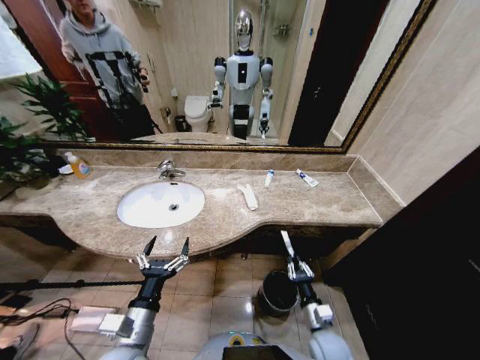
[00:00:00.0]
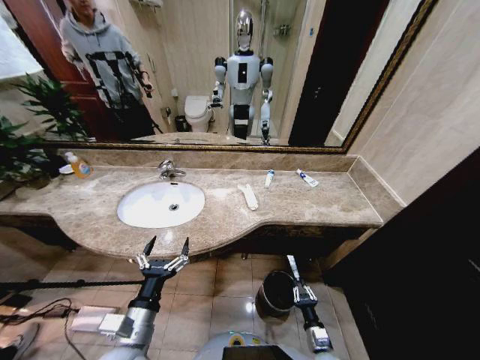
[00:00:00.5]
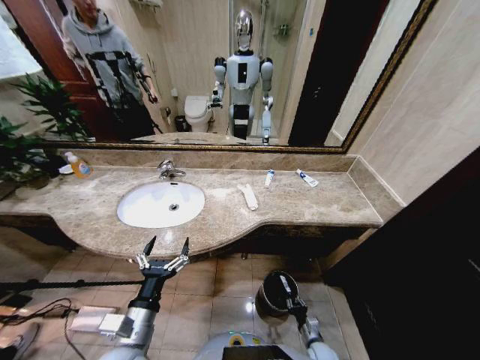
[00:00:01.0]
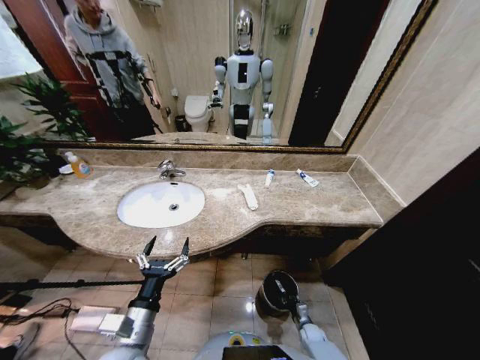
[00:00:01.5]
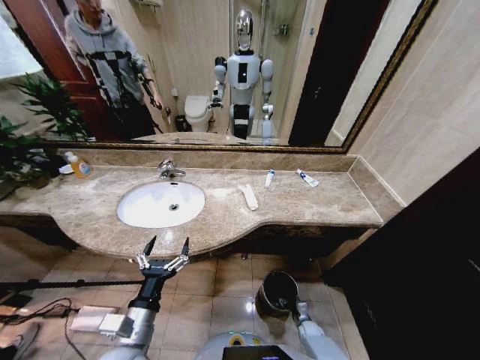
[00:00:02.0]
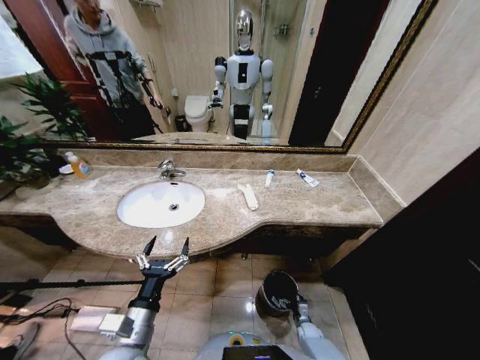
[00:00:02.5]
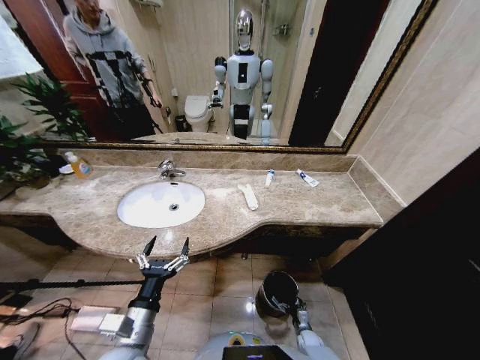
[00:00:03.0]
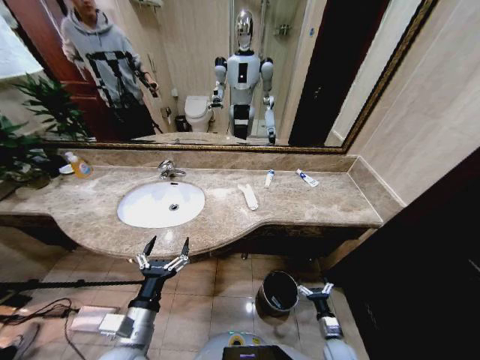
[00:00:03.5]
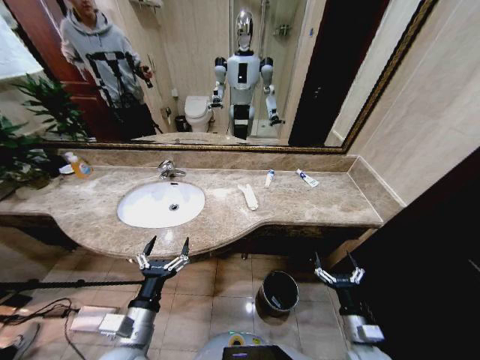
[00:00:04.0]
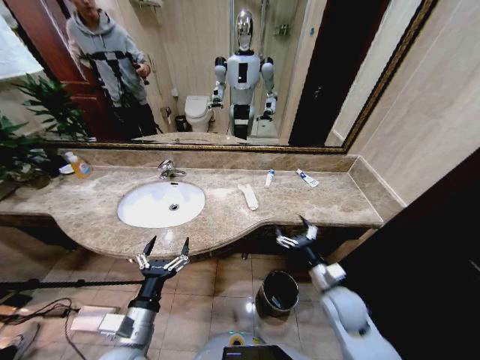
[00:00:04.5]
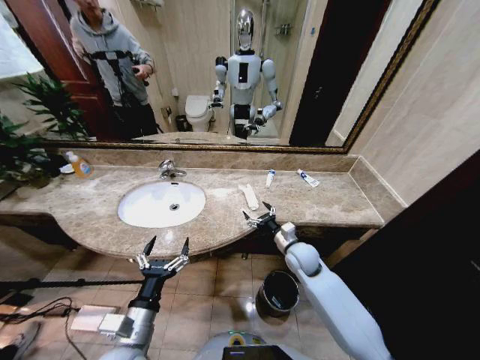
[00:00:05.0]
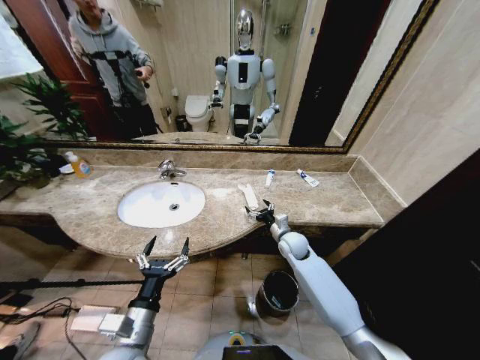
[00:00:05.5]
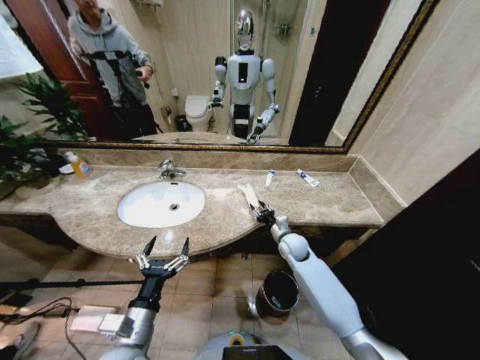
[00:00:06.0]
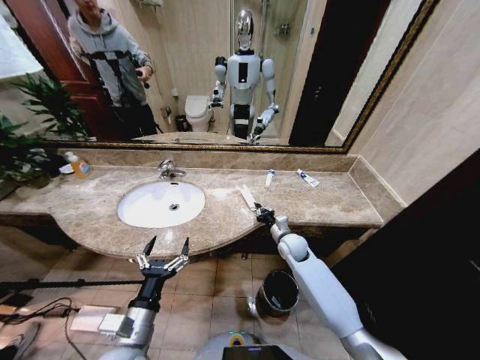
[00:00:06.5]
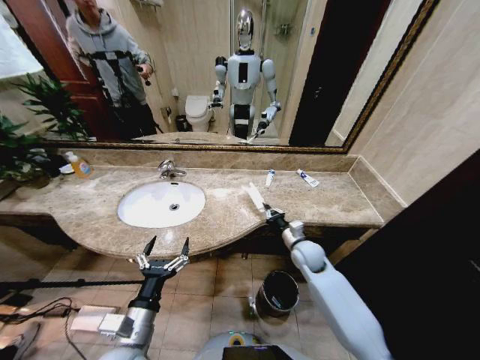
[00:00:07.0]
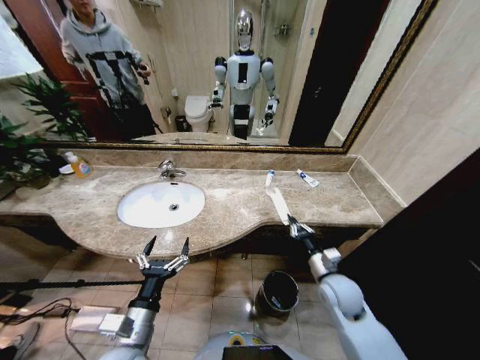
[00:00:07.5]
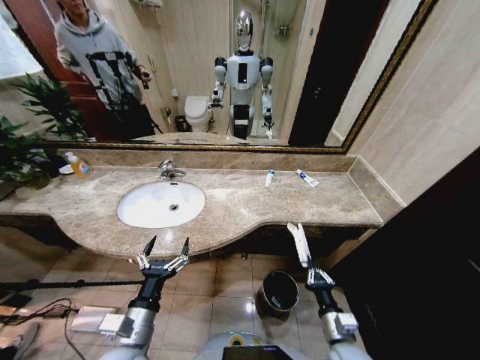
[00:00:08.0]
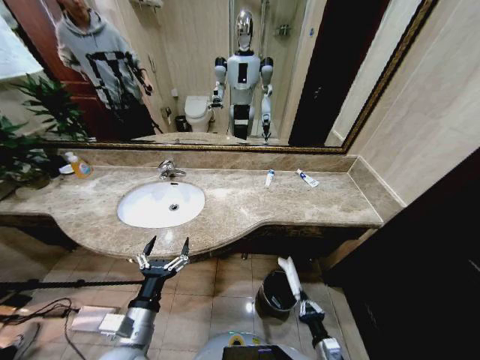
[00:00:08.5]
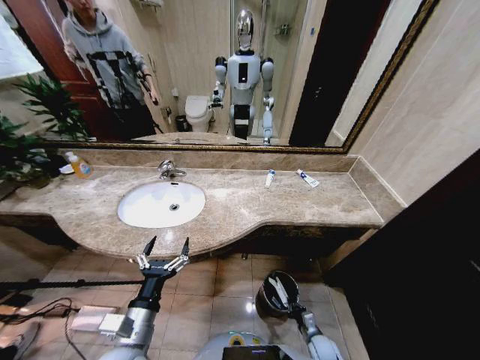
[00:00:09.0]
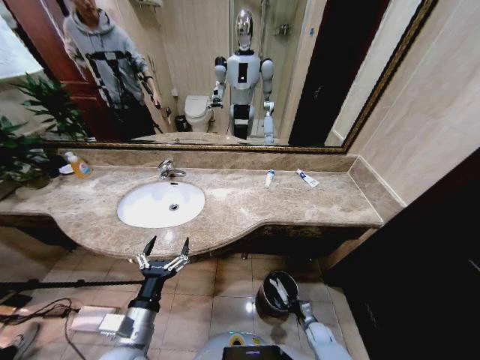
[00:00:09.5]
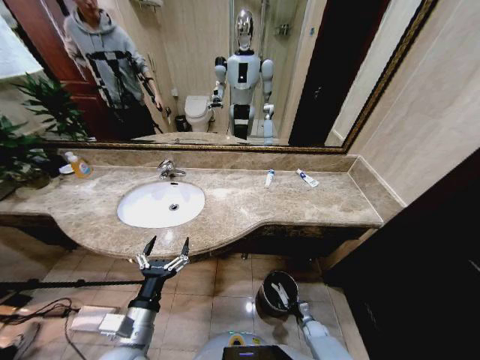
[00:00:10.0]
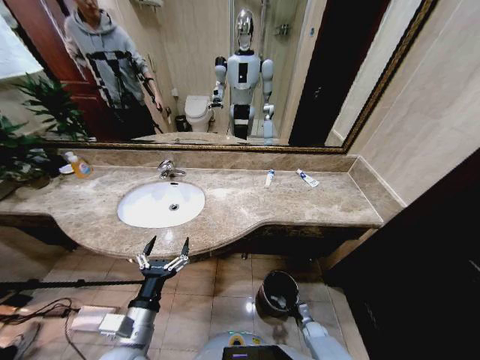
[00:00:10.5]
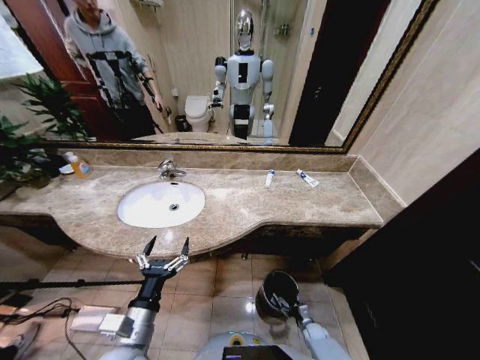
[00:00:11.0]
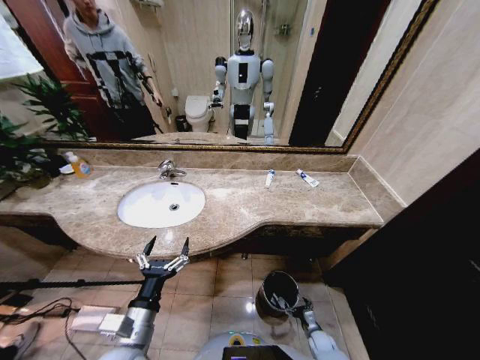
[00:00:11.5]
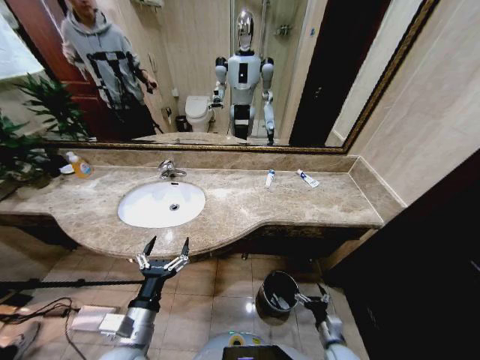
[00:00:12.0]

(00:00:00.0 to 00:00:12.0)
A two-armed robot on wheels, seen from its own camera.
Task of the whole recording: Pick up the trash from the sink and place it in the trash bin.
00:00:00.0 - 00:00:02.0: The right gripper moves downward, about 25 cm, and opens.
00:00:02.0 - 00:00:04.0: The right gripper shifts some 25 cm upward, and opens up.
00:00:04.0 - 00:00:06.0: The right gripper moves forward and to the left, some 35 cm, and closes up.
00:00:06.0 - 00:00:08.0: The right gripper shifts some 30 cm backward, and closes up.
00:00:08.0 - 00:00:10.0: The right gripper moves downward, some 30 cm.
00:00:10.0 - 00:00:12.0: The right gripper goes approximately 20 cm upward and backward, and opens.

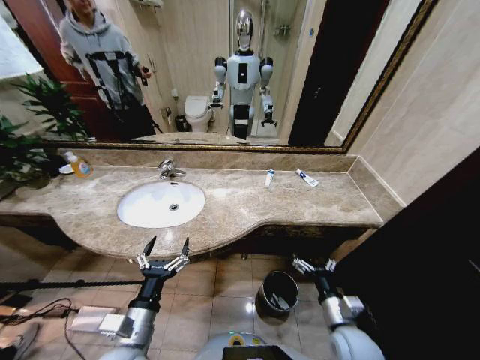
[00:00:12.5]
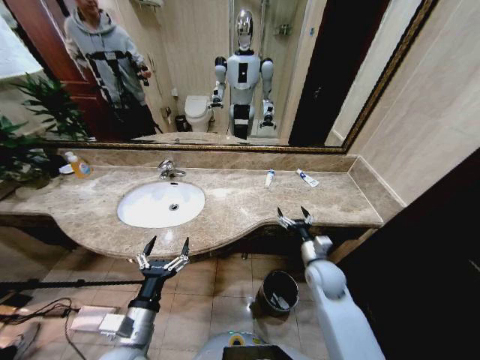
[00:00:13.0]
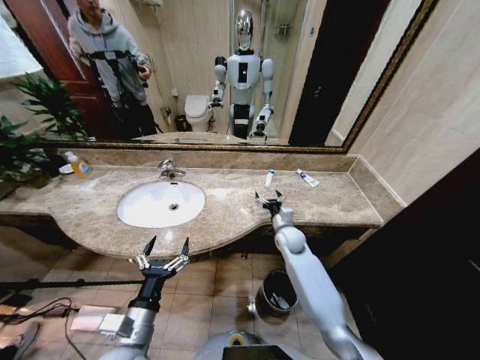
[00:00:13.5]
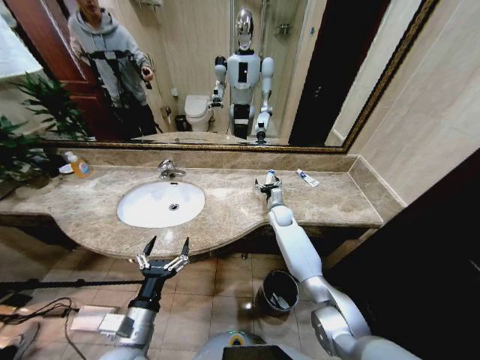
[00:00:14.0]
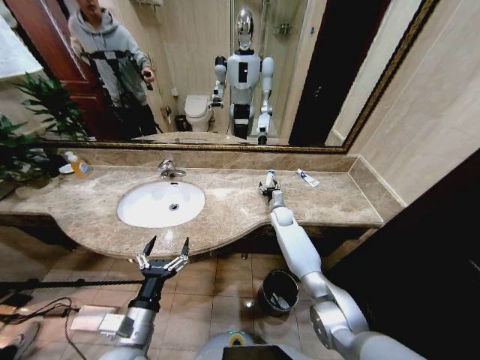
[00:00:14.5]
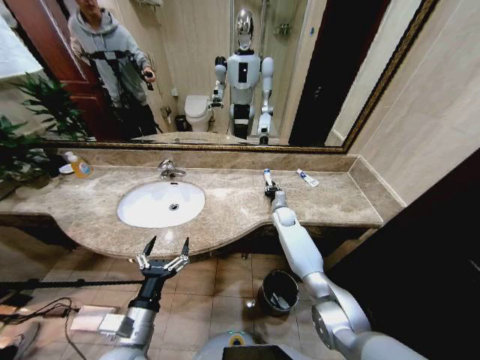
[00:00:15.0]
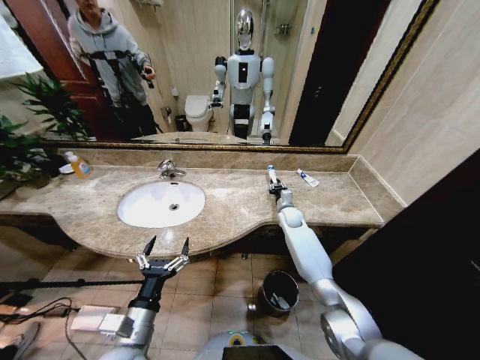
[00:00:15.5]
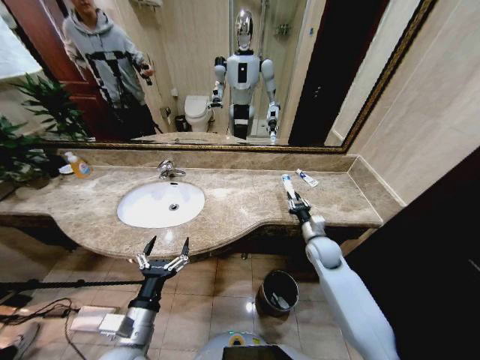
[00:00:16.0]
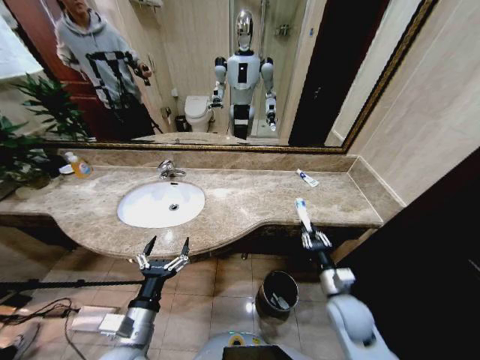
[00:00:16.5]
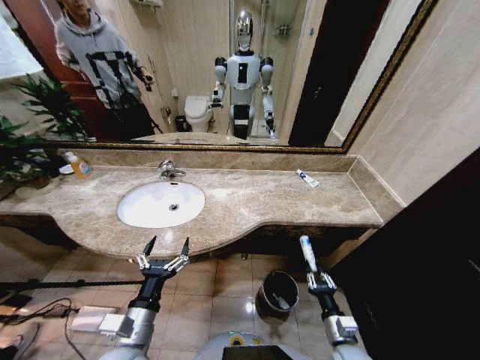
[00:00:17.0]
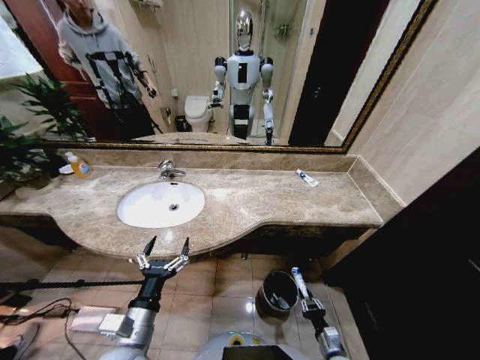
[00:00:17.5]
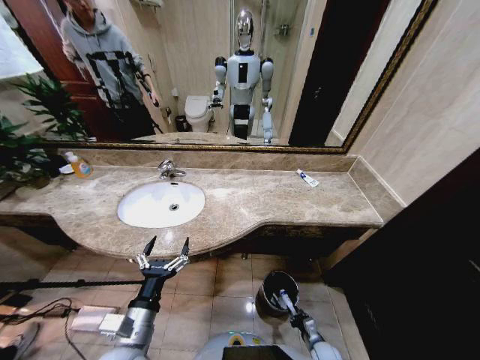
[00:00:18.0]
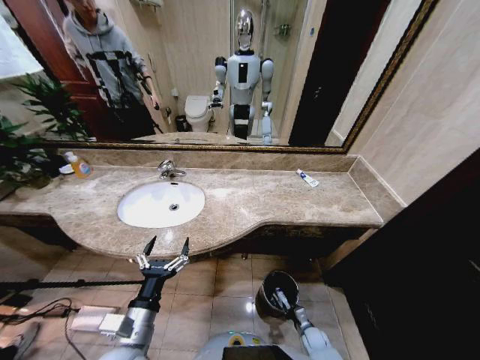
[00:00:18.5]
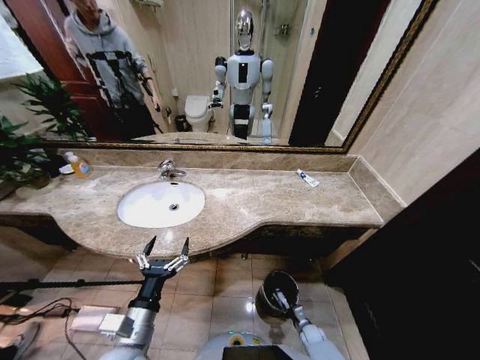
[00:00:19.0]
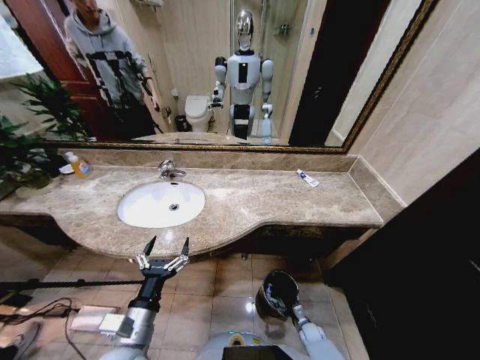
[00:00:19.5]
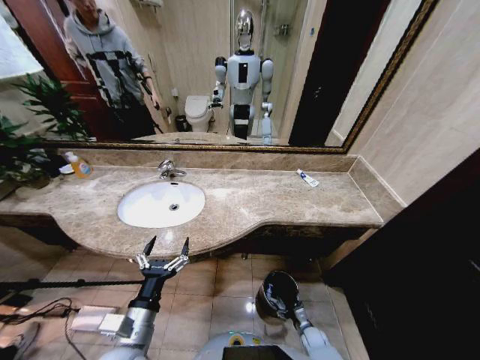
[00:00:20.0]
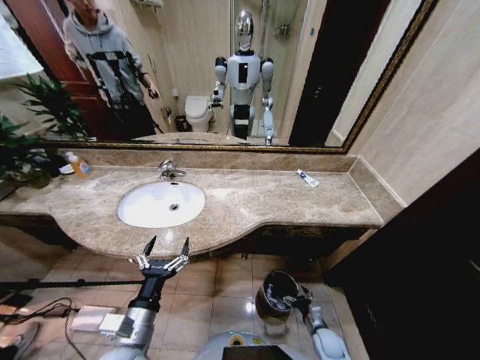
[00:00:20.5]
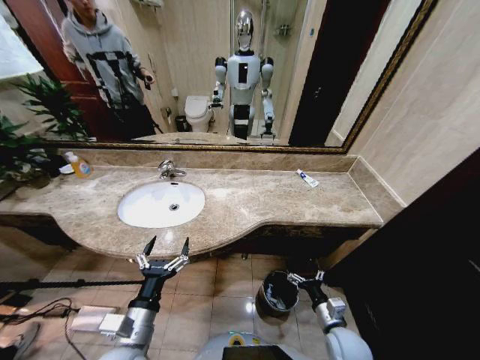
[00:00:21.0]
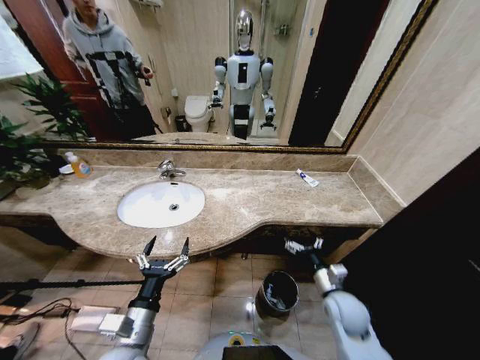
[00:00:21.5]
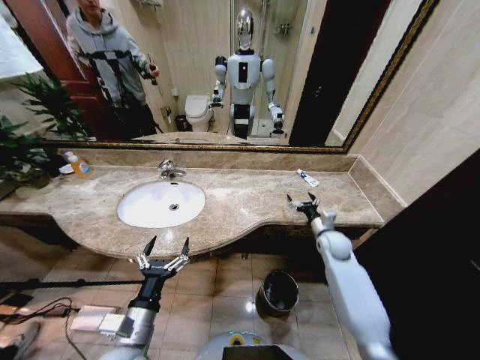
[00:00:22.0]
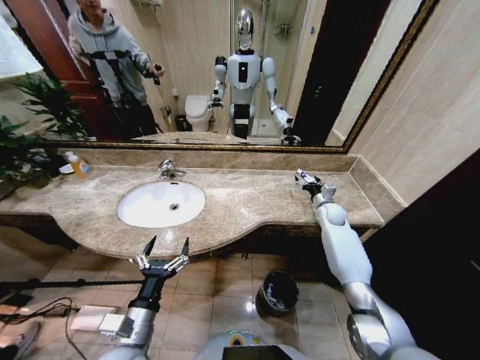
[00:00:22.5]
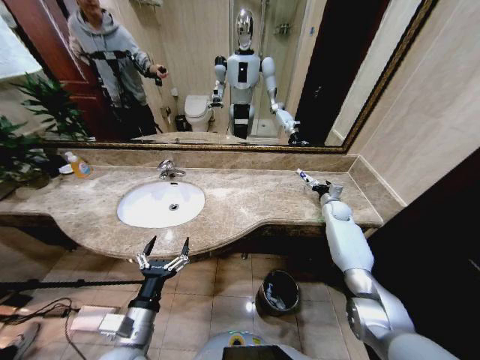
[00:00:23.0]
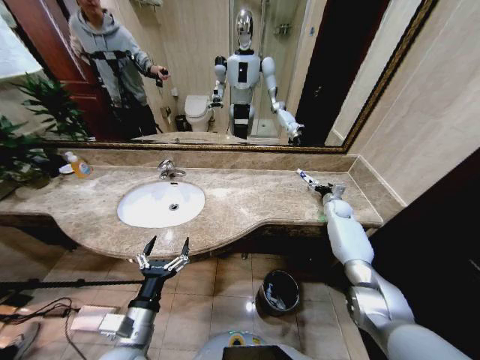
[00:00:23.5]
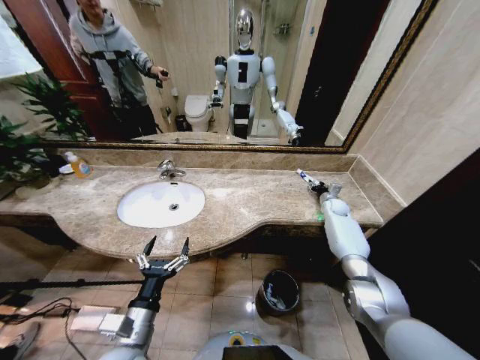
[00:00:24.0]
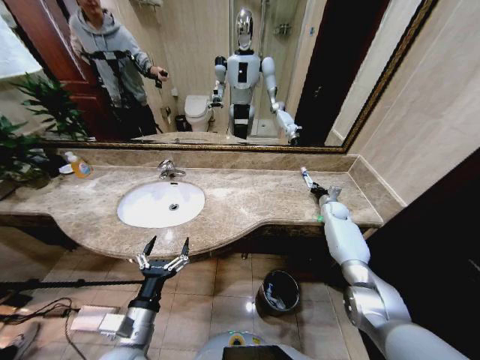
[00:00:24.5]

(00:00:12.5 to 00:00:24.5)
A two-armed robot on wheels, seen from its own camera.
Task of the whole recording: Pick up the trash from the sink and place it in the trash bin.
00:00:12.5 - 00:00:14.5: The right gripper heads forward, covering some 40 cm.
00:00:14.5 - 00:00:16.5: The right gripper goes some 35 cm backward, and closes its fingers.
00:00:16.5 - 00:00:18.5: The right gripper shifts about 30 cm downward.
00:00:18.5 - 00:00:20.5: The right gripper shifts about 10 cm upward, and opens.
00:00:20.5 - 00:00:22.5: The right gripper shifts about 40 cm forward and upward.
00:00:22.5 - 00:00:24.5: The right gripper shifts about 5 cm to the right, and closes its fingers.

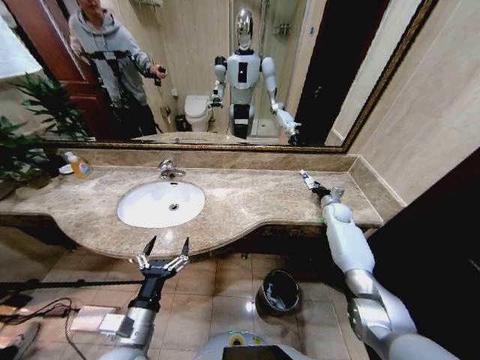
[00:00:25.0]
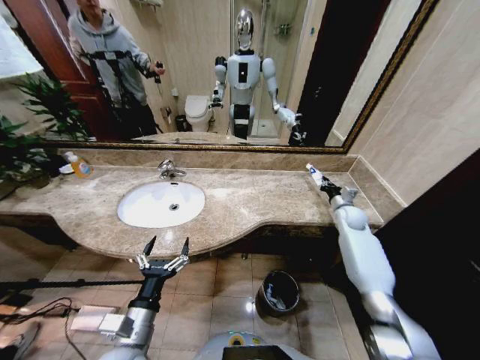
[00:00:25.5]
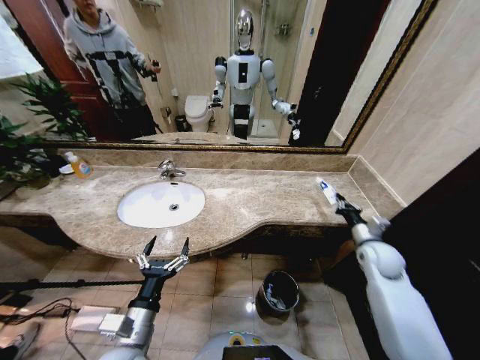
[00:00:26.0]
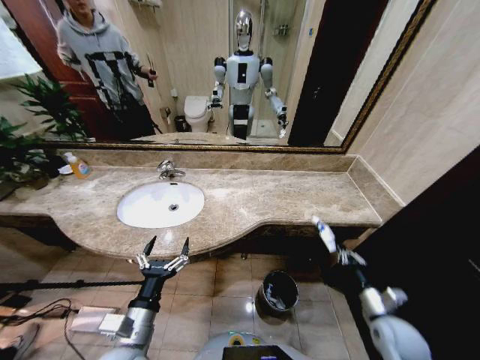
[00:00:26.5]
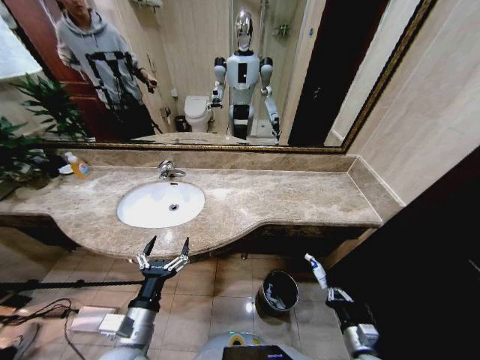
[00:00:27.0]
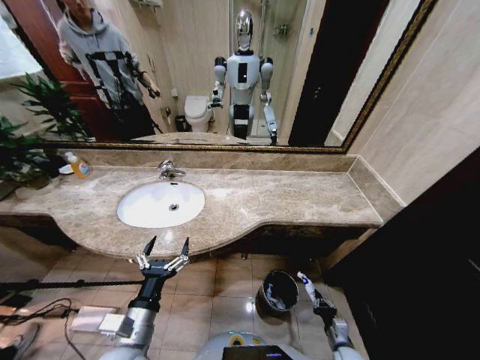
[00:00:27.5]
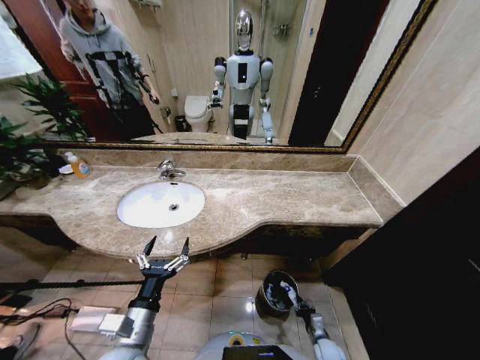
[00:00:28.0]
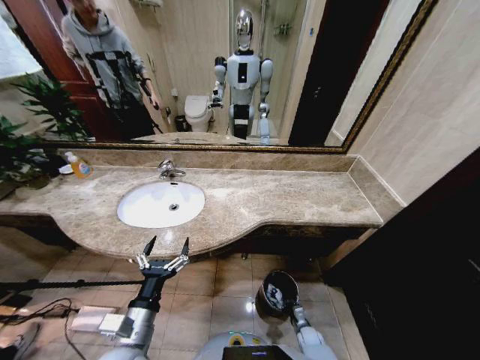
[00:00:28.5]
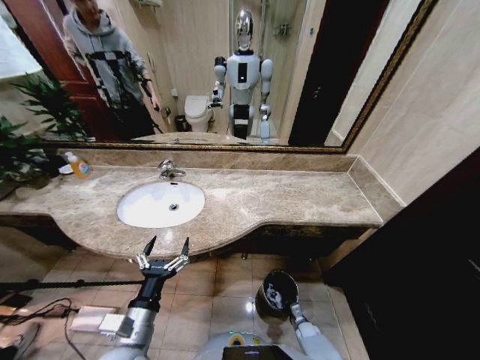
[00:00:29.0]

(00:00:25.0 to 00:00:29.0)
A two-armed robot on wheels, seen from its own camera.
Task of the whole recording: Pick up the trash from the sink and place it in the trash bin.
00:00:25.0 - 00:00:27.0: The right gripper goes about 40 cm backward.
00:00:27.0 - 00:00:29.0: The right gripper moves downward and forward, roughly 25 cm.
